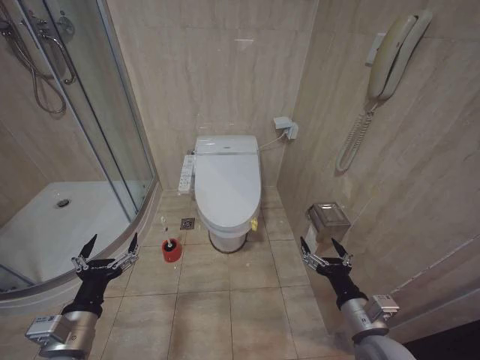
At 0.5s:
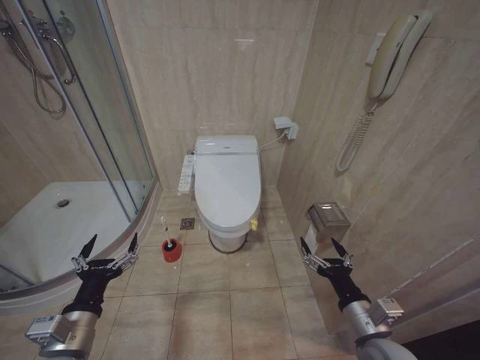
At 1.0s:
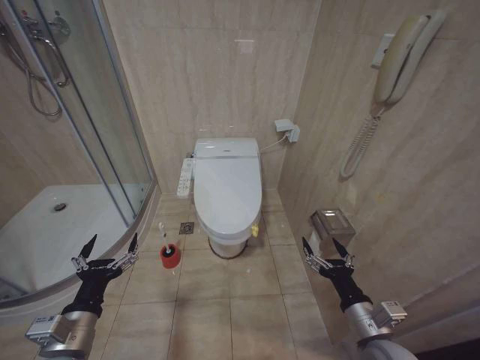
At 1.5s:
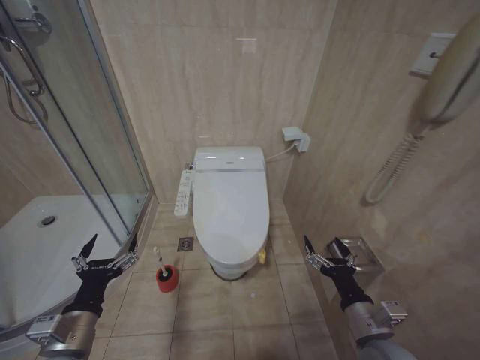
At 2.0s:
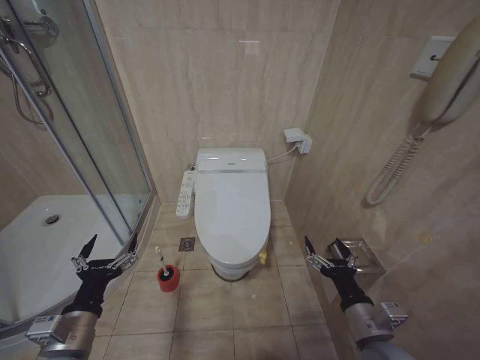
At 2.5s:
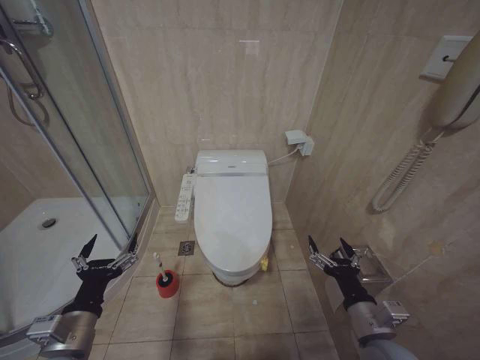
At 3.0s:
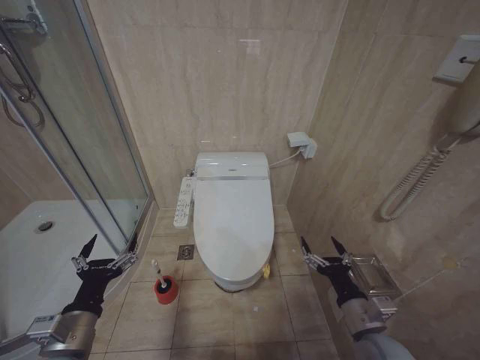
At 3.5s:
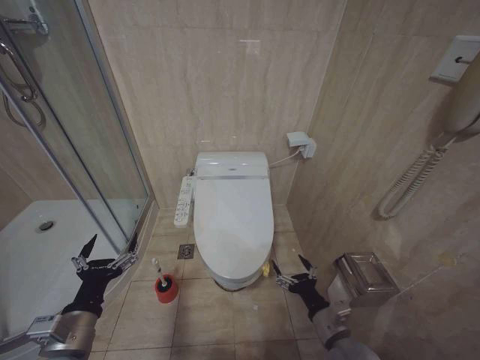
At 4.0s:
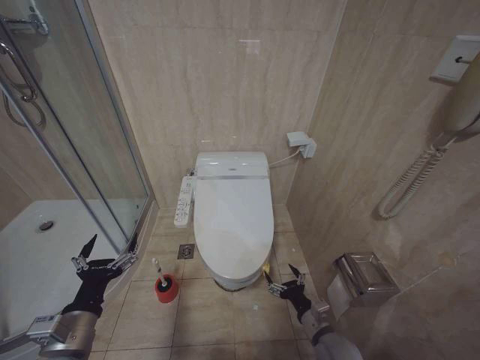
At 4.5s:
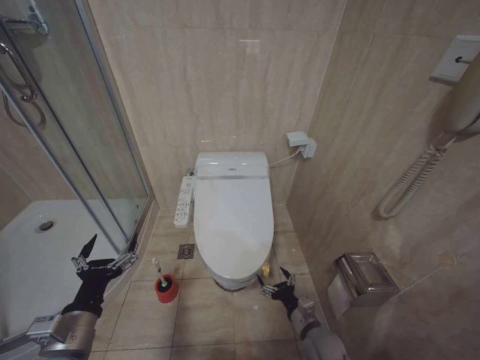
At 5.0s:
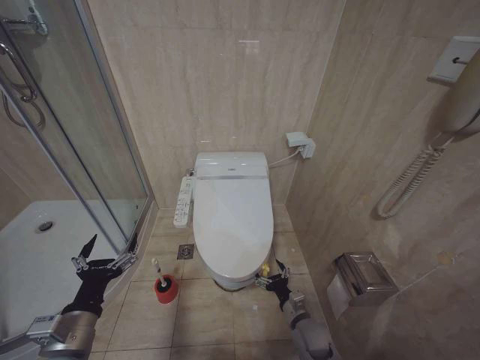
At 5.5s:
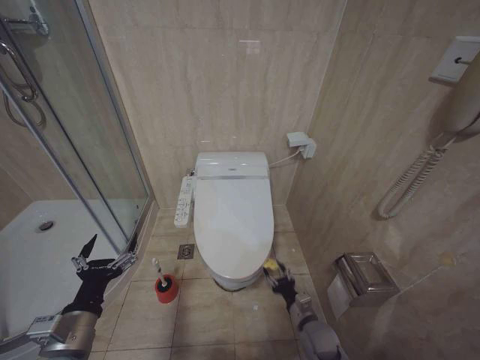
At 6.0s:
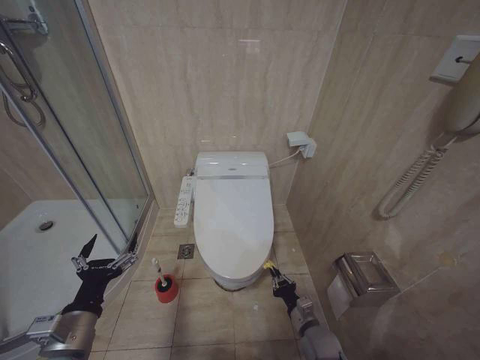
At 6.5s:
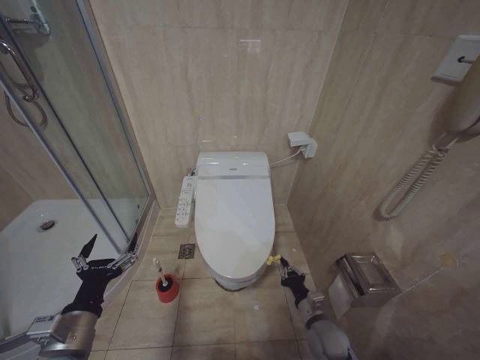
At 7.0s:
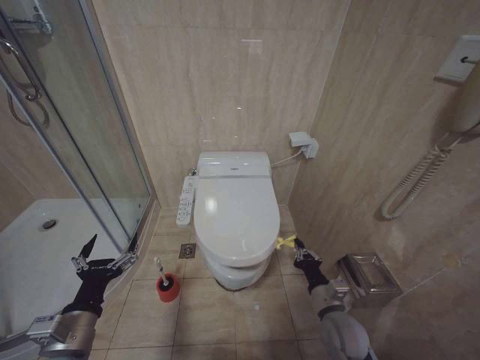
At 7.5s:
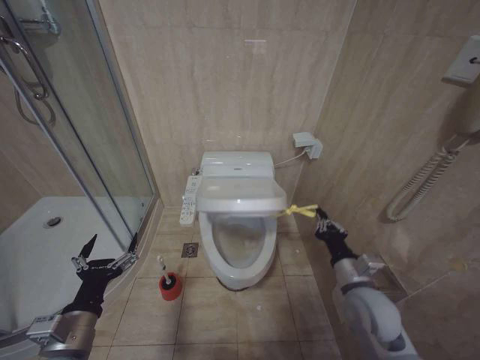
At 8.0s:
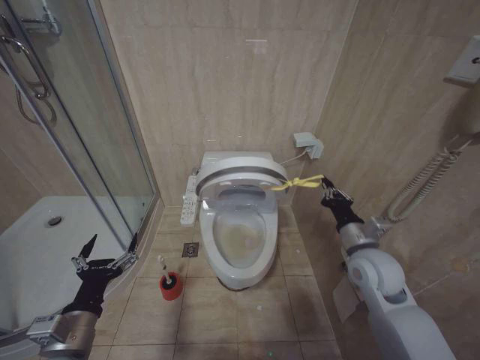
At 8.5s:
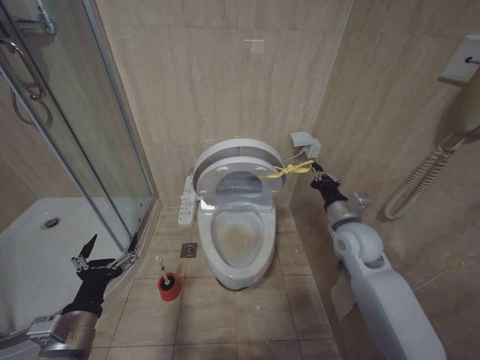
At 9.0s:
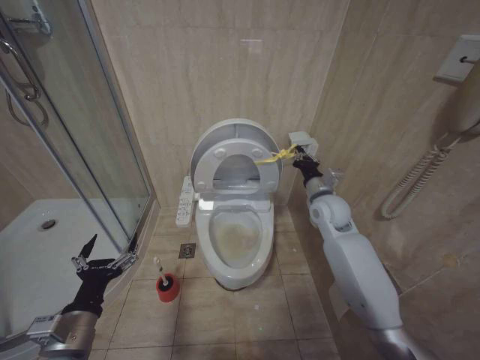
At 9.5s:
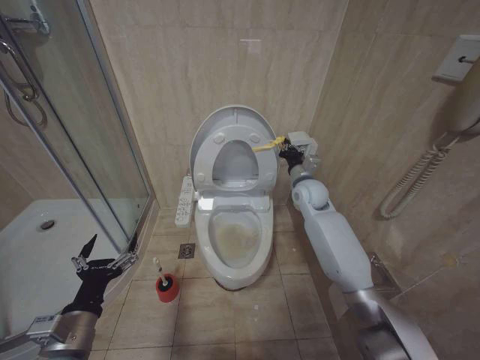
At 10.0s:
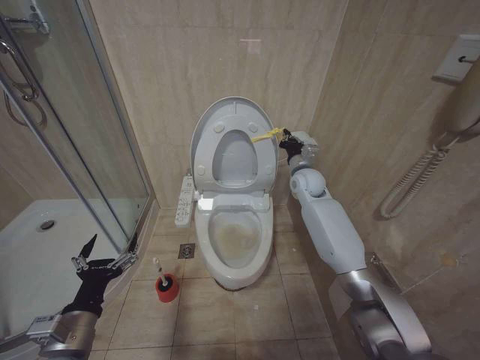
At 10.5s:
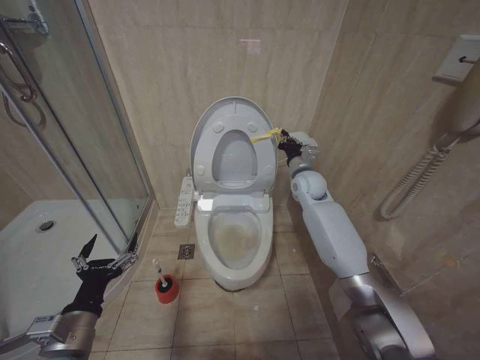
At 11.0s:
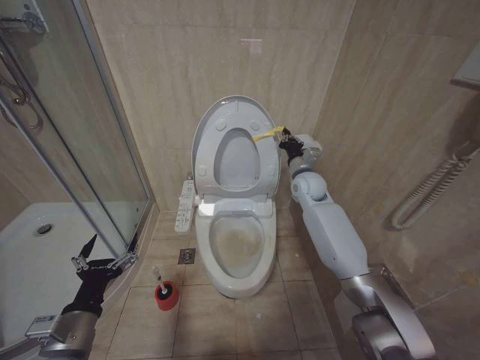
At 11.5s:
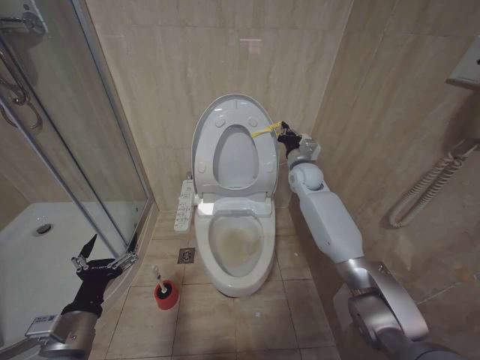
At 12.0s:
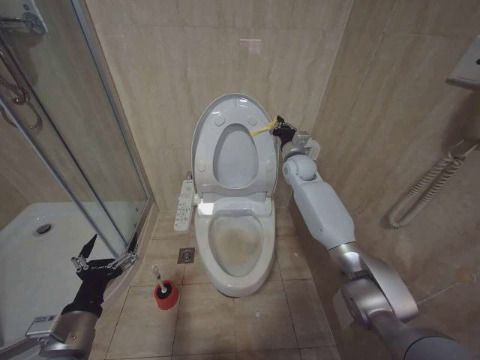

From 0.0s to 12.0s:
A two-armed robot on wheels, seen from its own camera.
Task of the whole recording: Open the toilet lid, clean the toilet bowl with a toilet brush, close the toilet lid, and flush.
From 2.0s to 4.0s: The right gripper moves downward, approximately 15 cm.
From 4.0s to 6.0s: The right gripper is displaced downward by approximately 5 cm, and closes.
From 6.0s to 8.0s: The right gripper is displaced upward by some 25 cm.
From 8.0s to 10.0s: The right gripper shifts some 25 cm forward.
From 10.0s to 12.0s: The right gripper shifts by approximately 5 cm.

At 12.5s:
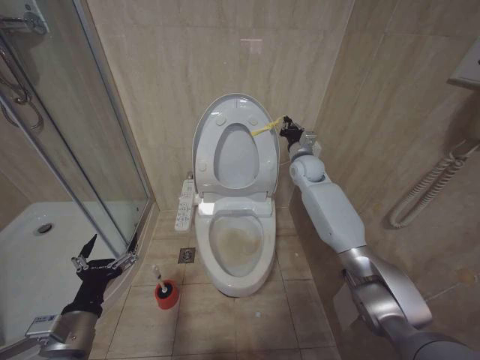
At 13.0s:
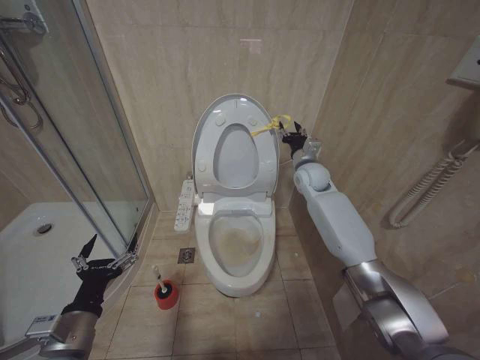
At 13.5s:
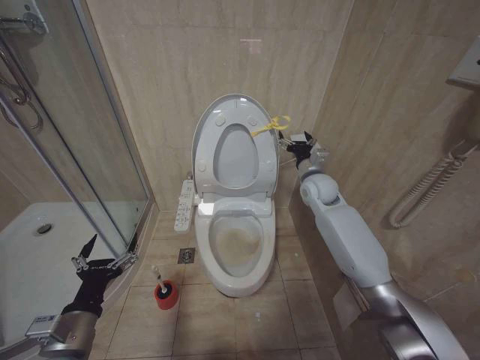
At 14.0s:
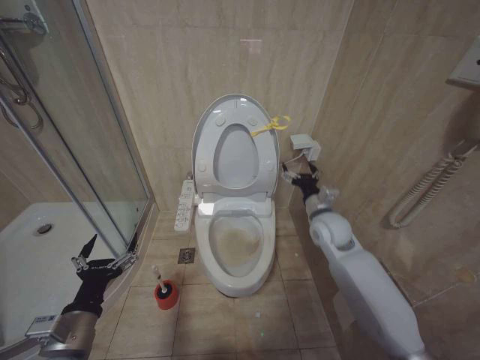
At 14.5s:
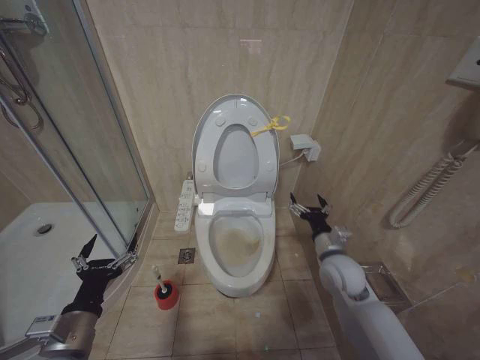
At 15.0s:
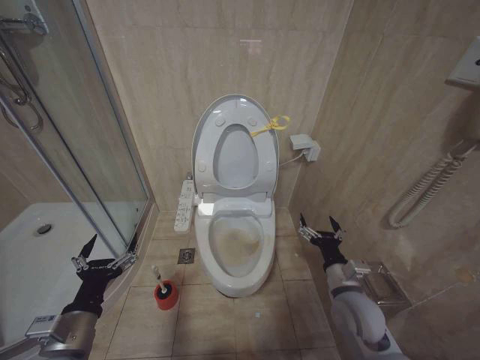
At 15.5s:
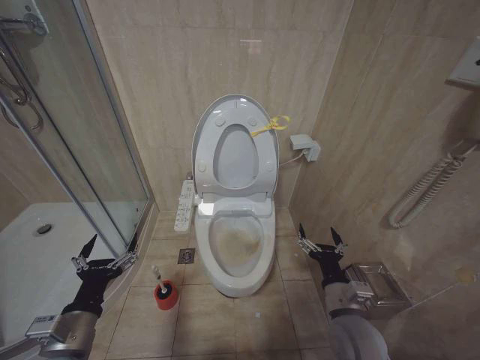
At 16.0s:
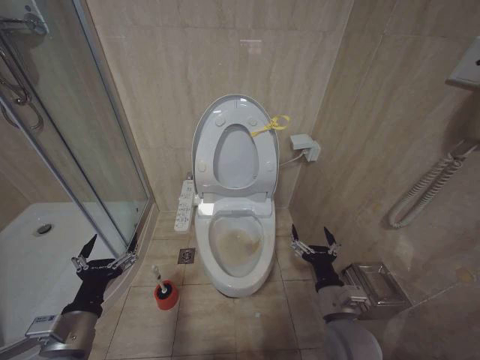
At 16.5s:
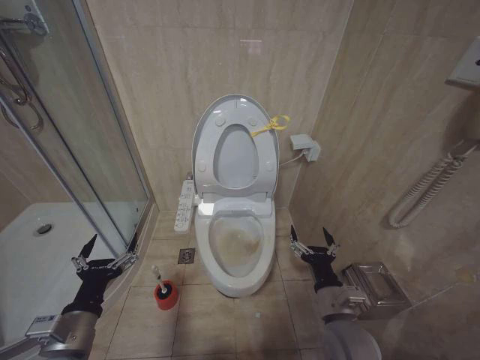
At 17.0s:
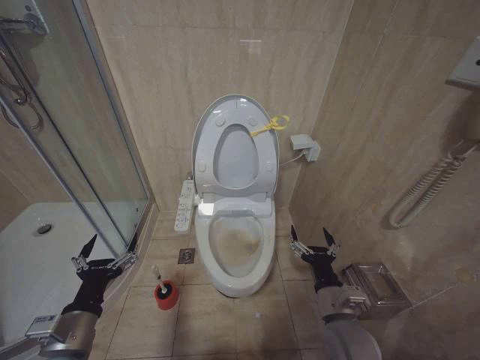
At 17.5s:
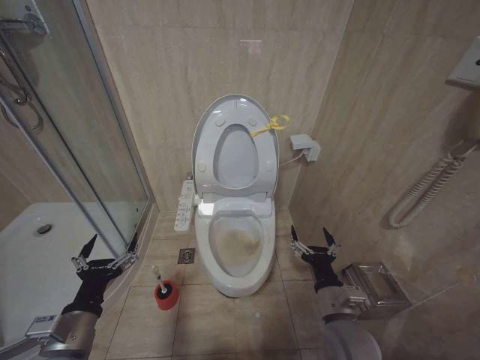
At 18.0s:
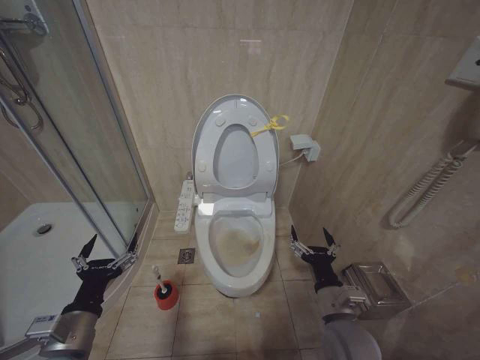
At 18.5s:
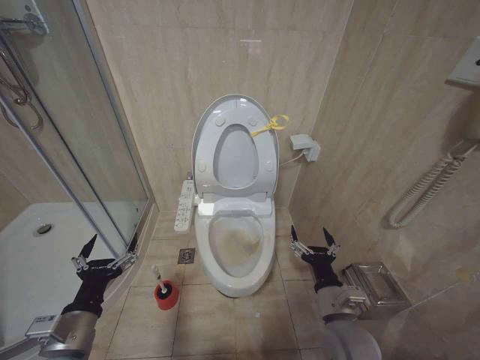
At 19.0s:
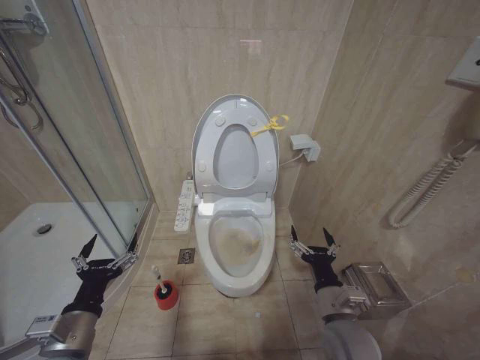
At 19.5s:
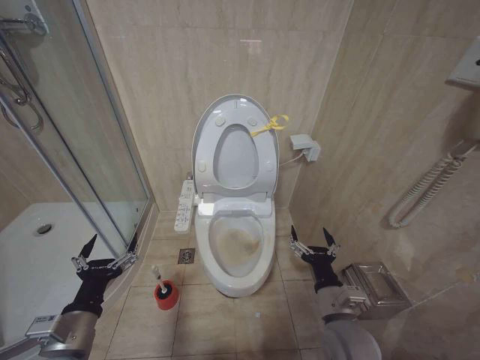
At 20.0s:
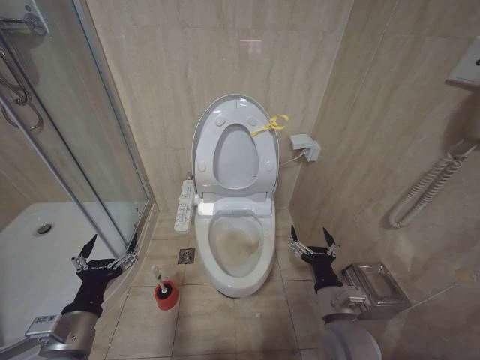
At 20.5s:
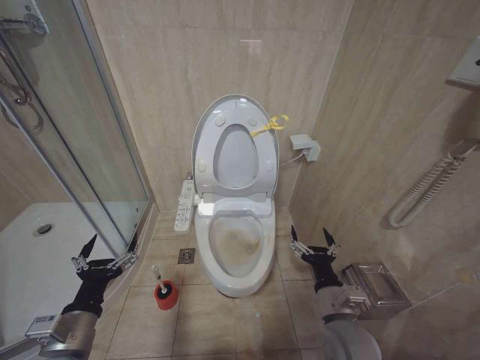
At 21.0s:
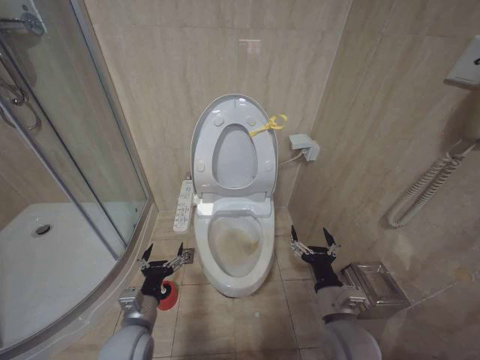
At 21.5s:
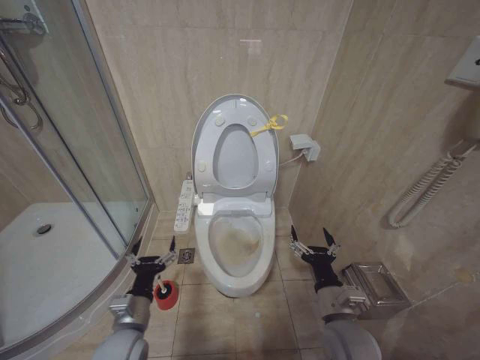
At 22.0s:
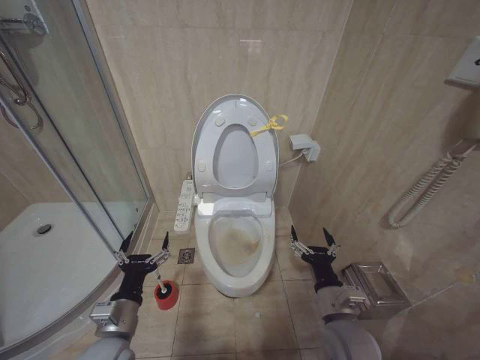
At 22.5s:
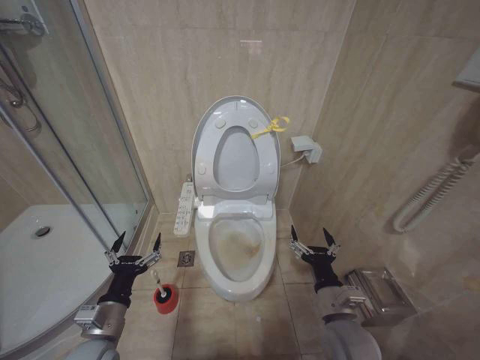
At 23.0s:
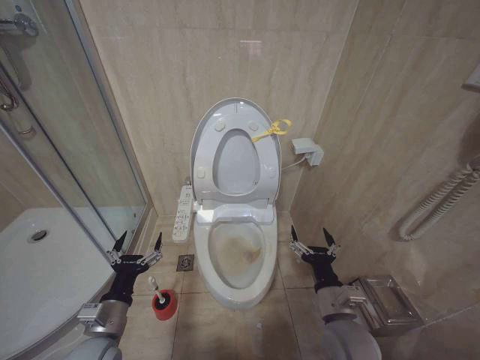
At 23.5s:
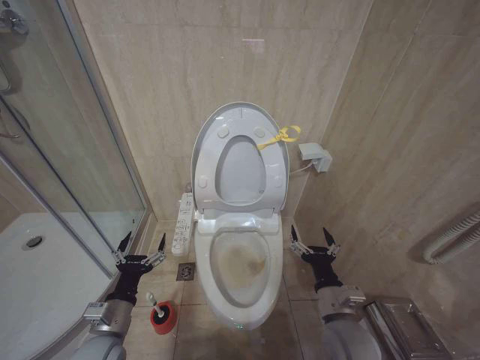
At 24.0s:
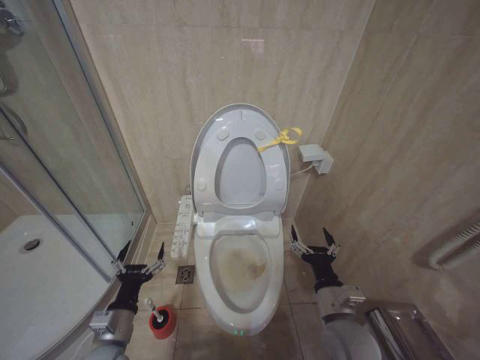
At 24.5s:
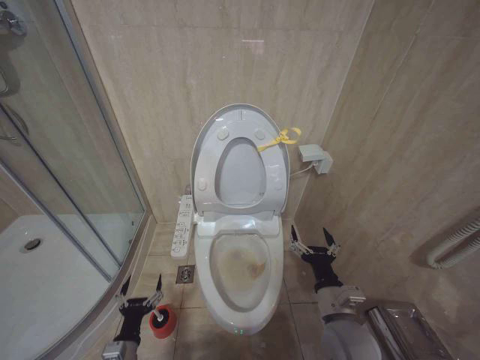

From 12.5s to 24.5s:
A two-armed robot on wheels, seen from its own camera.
Task of the whole recording: Open the toilet lid, clean the toilet bowl with a toilet brush, close the toilet lid, and flush.
From 12.5s to 14.5s: The right gripper travels backward and downward by some 30 cm, and opens up.
From 14.5s to 16.5s: The right gripper moves backward, roughly 15 cm.
From 16.5s to 20.5s: The two grippers keep their place.
From 22.5s to 24.5s: The left gripper travels downward by approximately 15 cm.

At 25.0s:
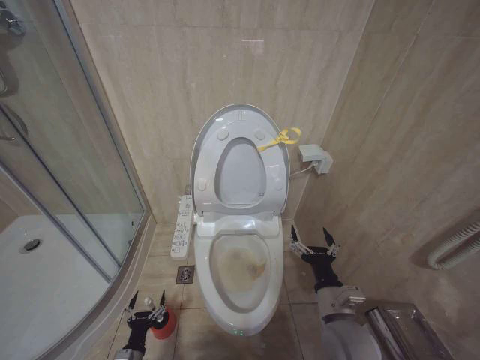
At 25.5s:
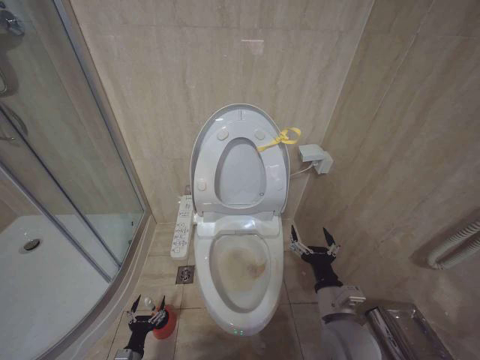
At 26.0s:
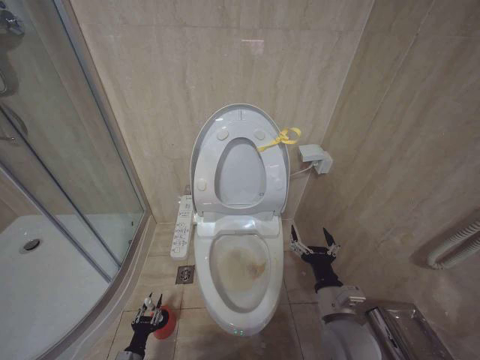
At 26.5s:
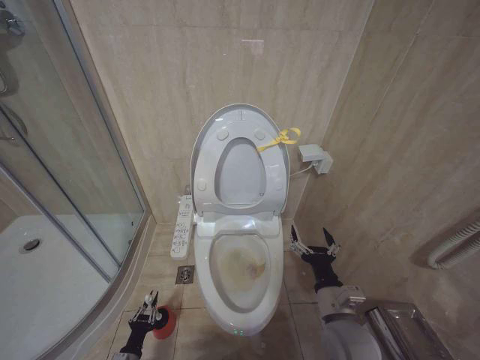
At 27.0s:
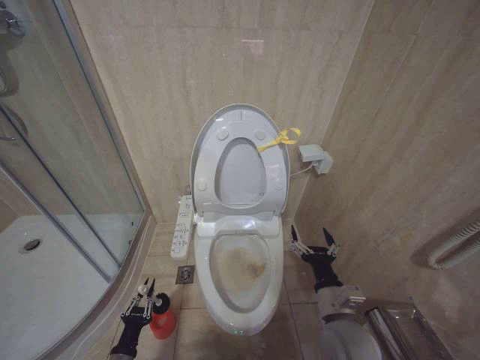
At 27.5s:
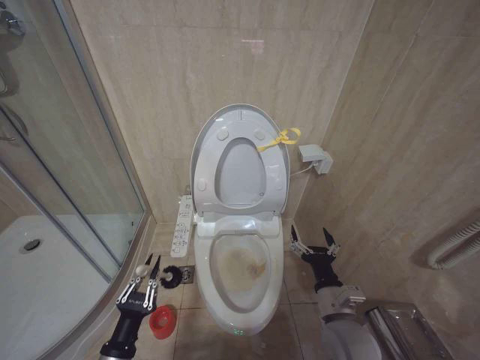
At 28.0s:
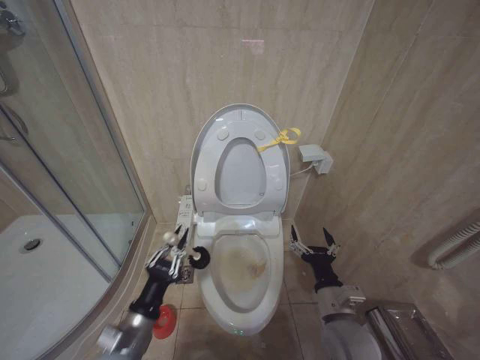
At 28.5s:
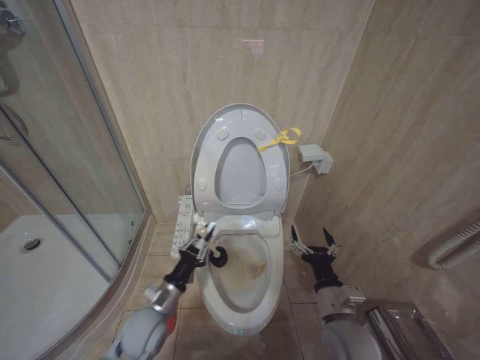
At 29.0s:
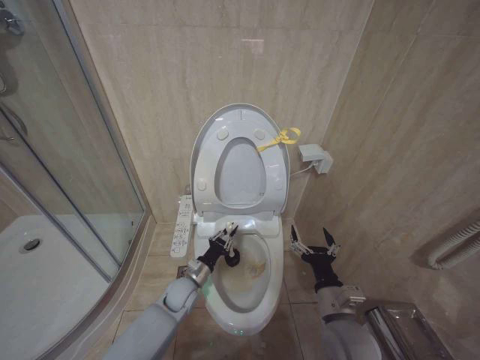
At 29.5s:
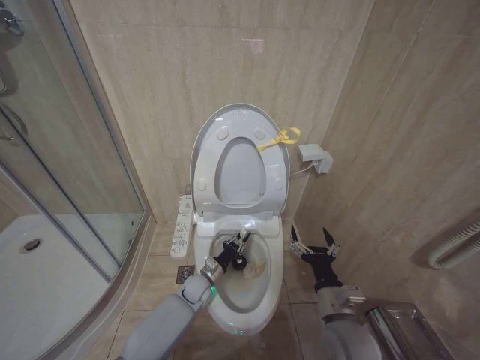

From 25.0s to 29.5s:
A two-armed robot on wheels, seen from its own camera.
Task of the whole recording: Open the toilet lid, clean the toilet bowl with a toilet brush, close the toilet lid, and flush.
From 25.0s to 27.0s: The left gripper reaches about 5 cm downward, then returns, and closes up.
From 27.0s to 29.5s: The left gripper goes approximately 30 cm forward and to the right.
